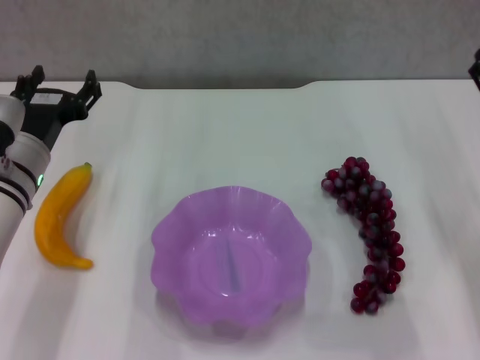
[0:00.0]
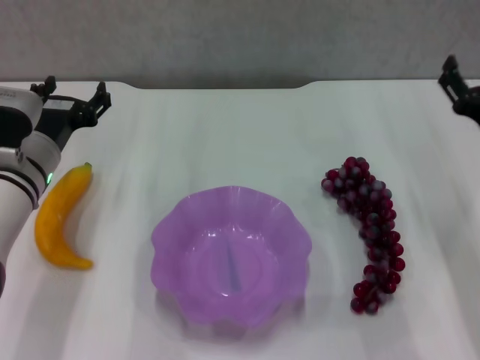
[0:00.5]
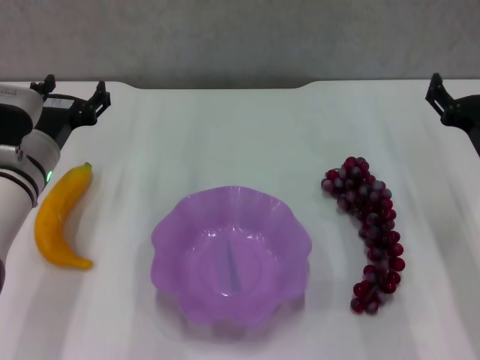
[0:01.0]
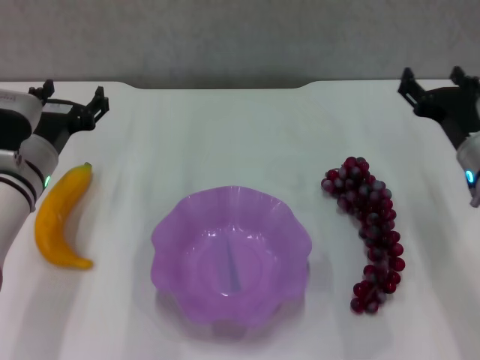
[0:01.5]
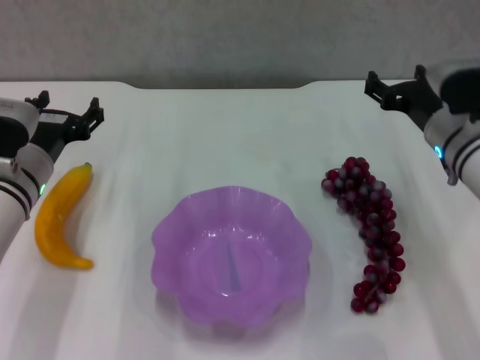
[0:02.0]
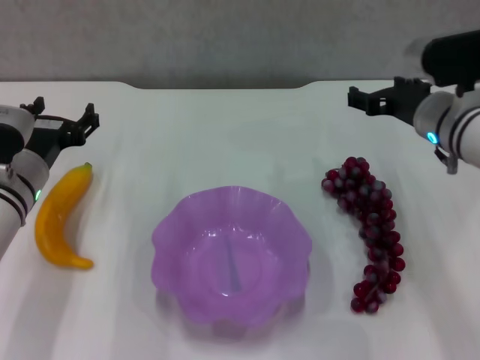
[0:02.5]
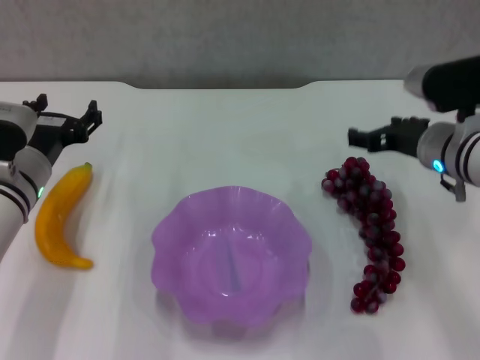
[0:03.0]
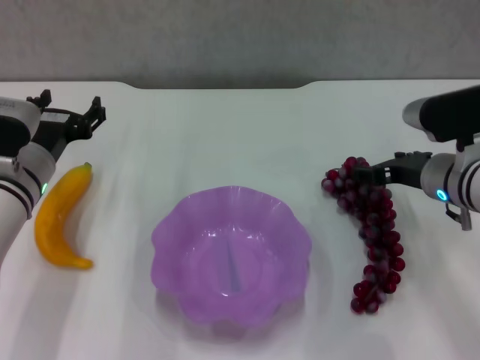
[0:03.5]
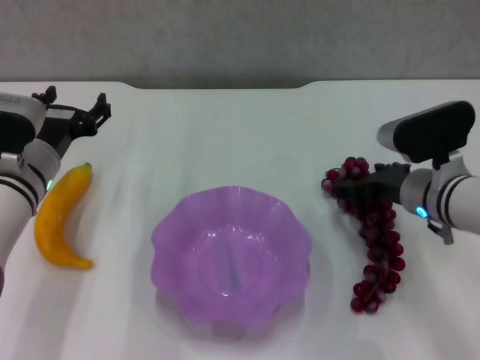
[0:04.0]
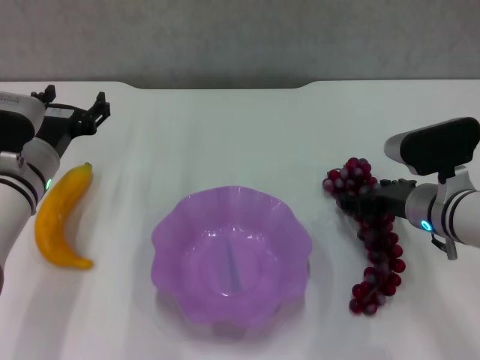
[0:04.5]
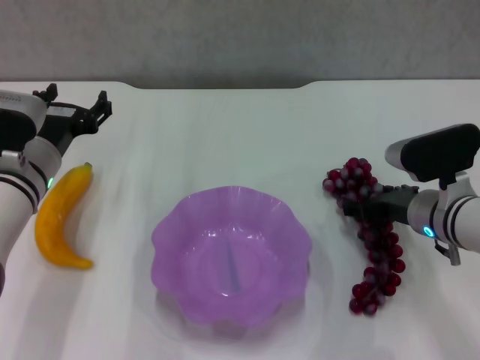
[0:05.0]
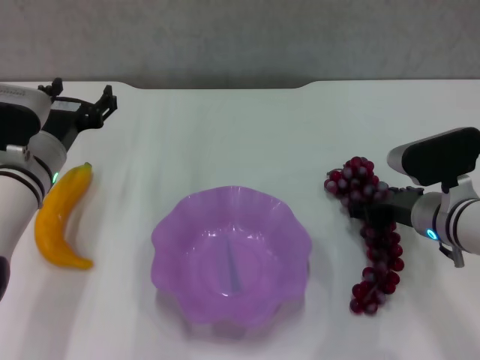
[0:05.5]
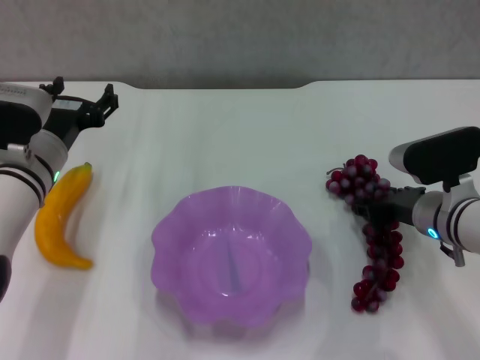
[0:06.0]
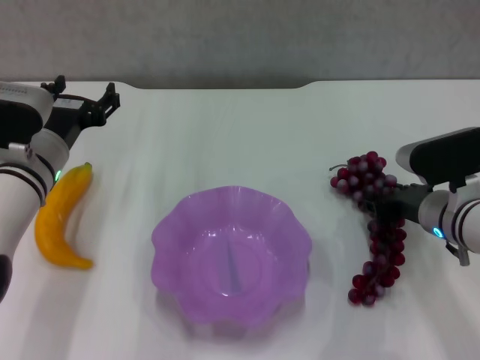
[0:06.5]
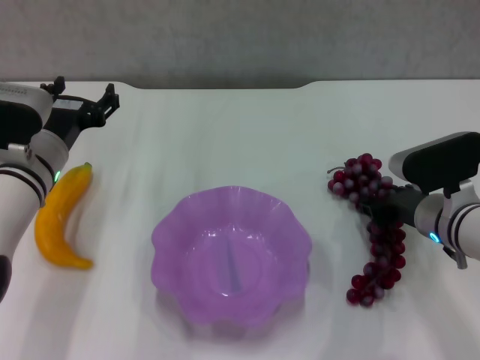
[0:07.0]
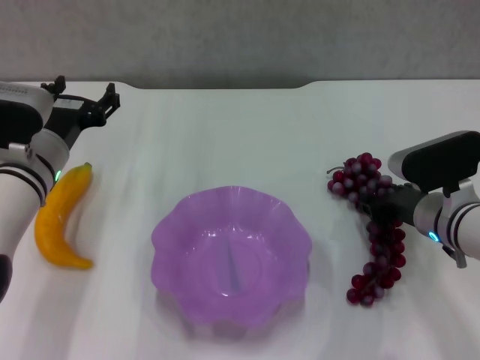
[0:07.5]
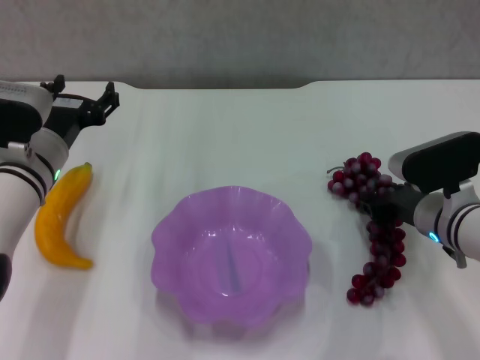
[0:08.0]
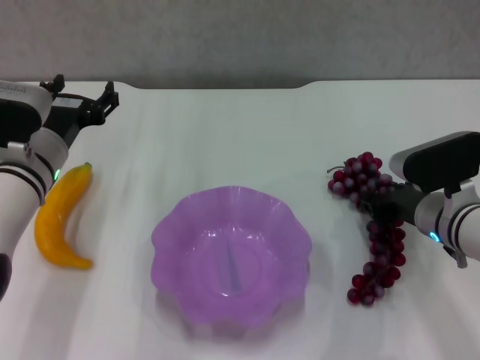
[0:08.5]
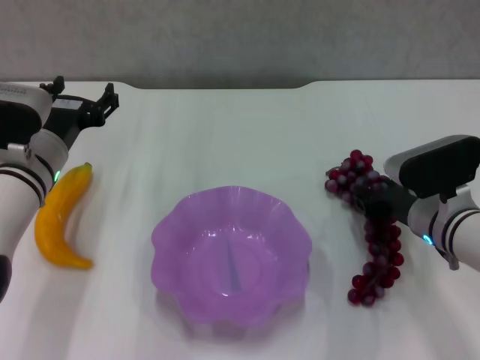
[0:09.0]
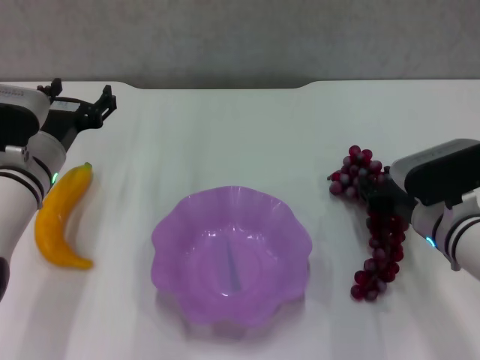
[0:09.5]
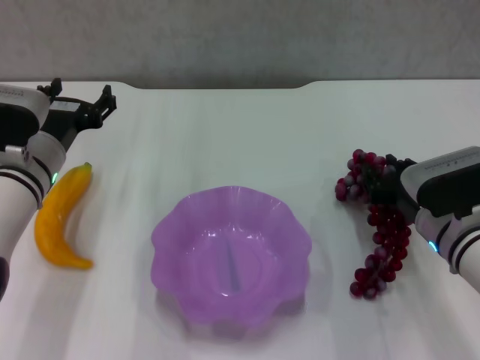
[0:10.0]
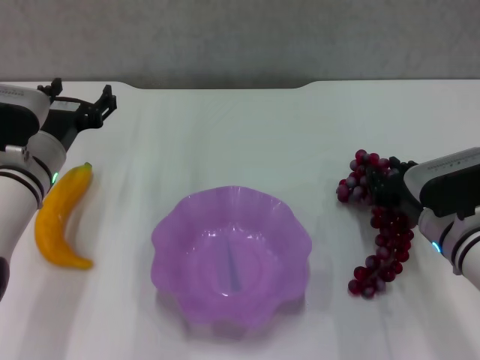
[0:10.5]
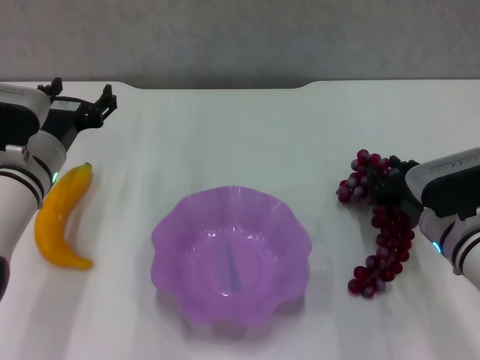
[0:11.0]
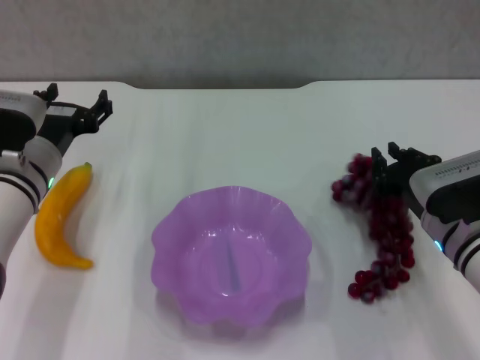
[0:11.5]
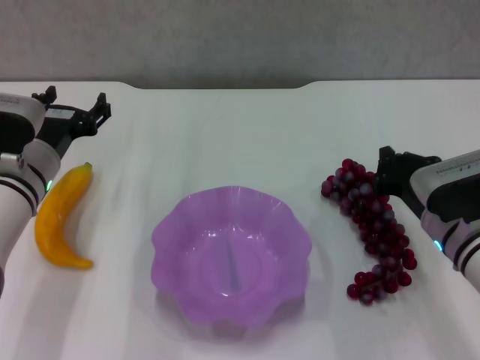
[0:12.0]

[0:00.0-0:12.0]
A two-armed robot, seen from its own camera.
0:00.0 to 0:02.0: The right gripper moves forward and to the left, about 10 cm.
0:02.0 to 0:04.0: The right gripper shifts by approximately 5 cm.
0:04.0 to 0:10.0: The grippers stay close to where they were, moving slightly.
0:10.0 to 0:12.0: The right gripper closes its fingers.

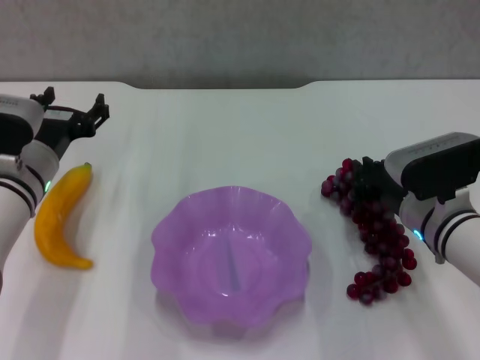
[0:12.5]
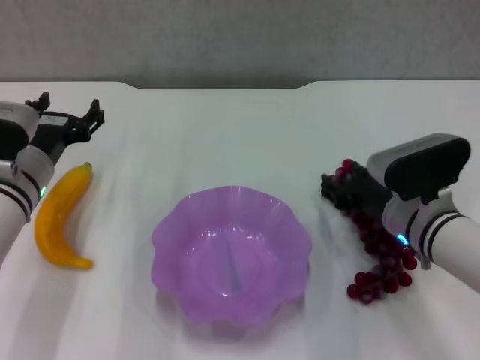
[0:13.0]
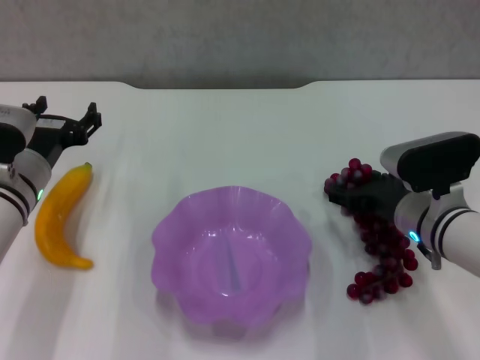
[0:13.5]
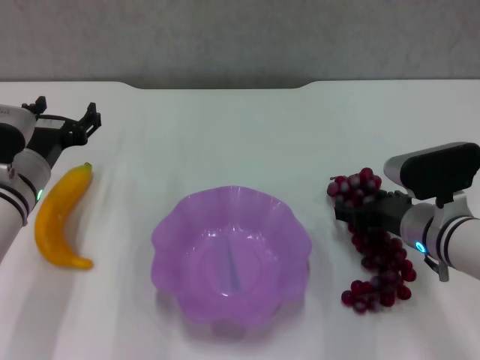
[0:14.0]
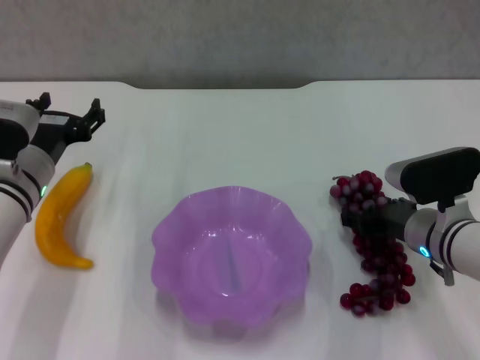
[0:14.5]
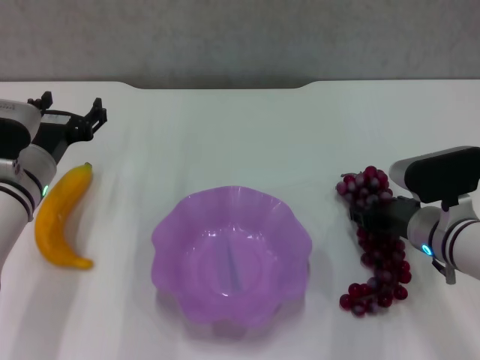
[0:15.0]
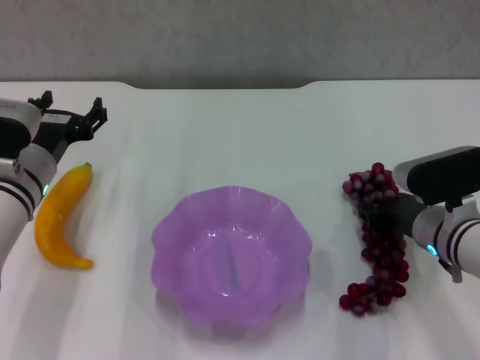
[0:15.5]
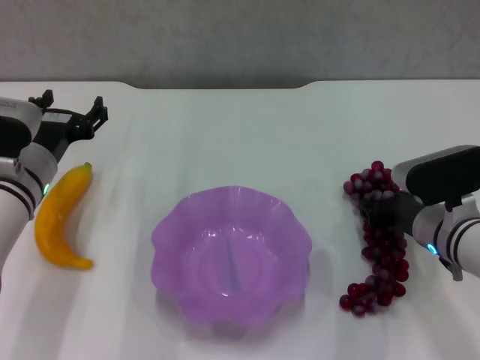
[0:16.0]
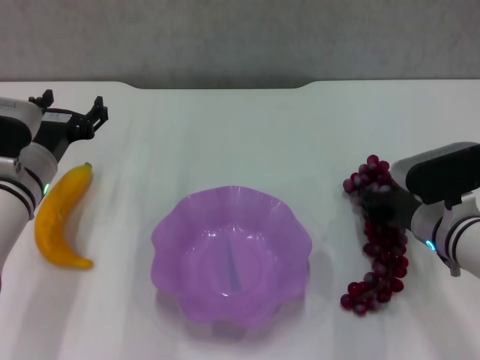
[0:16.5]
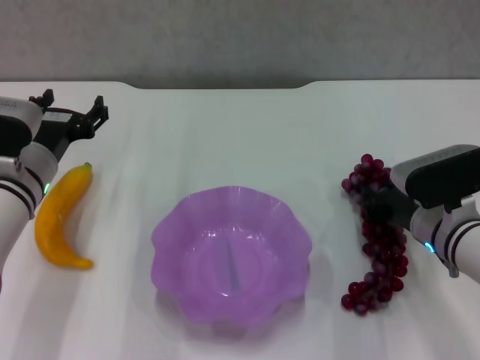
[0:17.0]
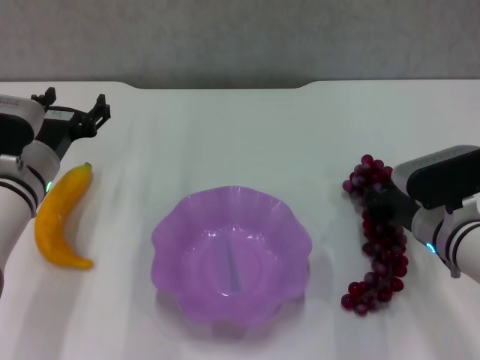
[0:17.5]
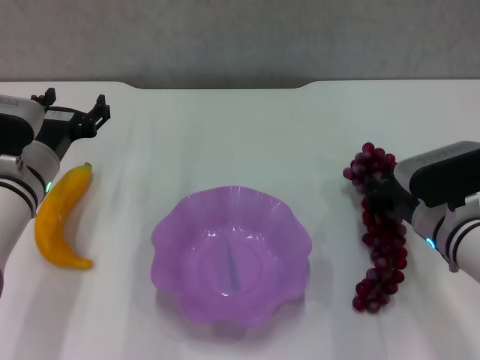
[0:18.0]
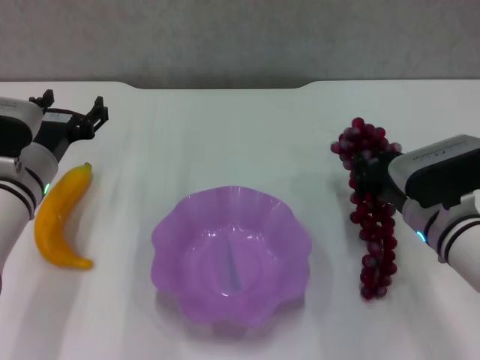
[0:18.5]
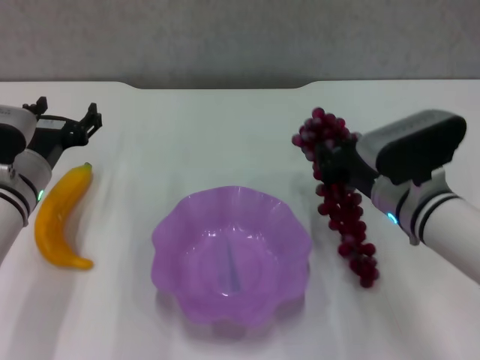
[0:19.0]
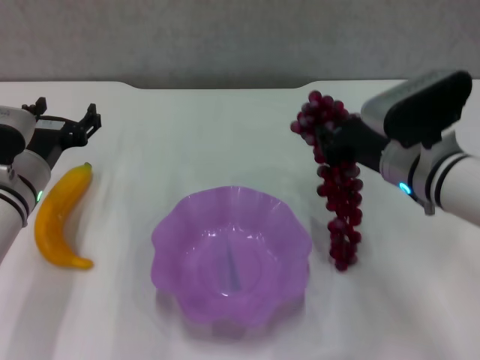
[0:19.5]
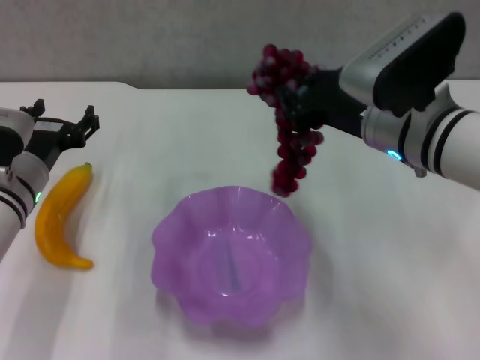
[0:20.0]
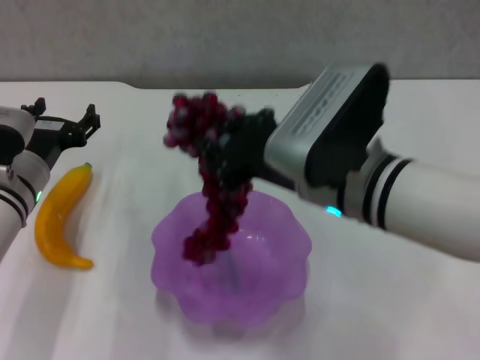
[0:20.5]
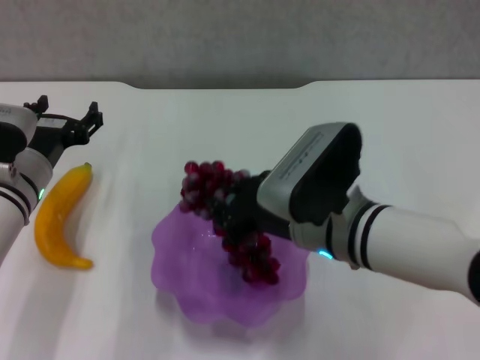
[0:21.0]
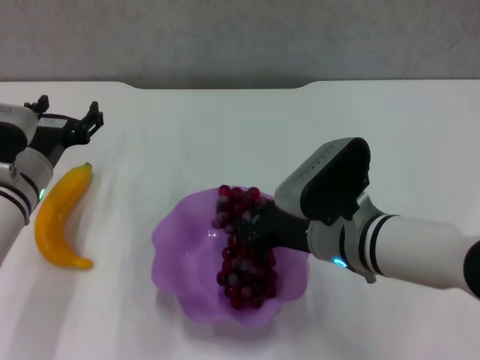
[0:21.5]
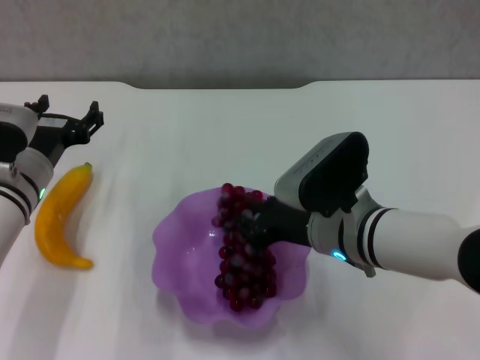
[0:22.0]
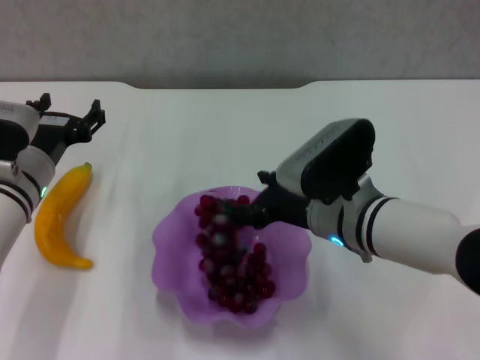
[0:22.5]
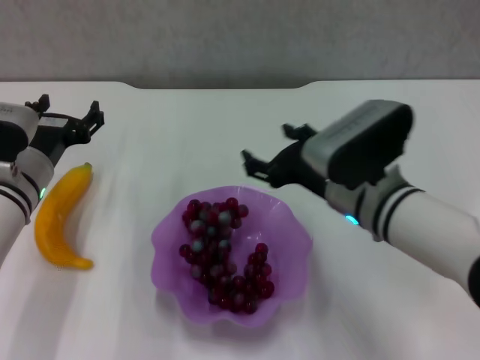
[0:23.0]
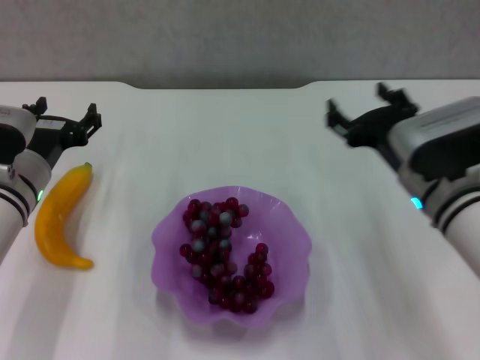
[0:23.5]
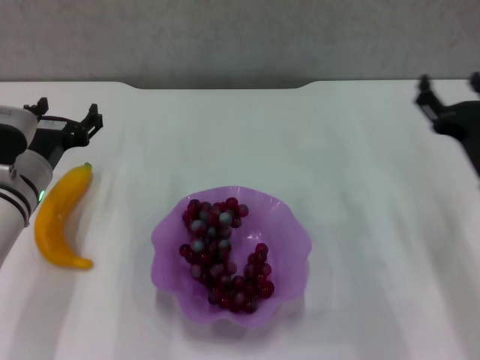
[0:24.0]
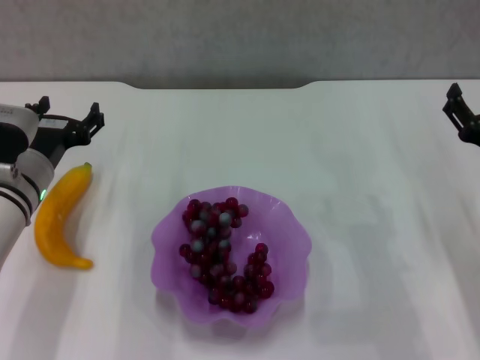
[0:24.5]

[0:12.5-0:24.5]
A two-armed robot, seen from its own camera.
Step, 0:12.5 to 0:17.0: Grasp the grape with right gripper.
Step, 0:17.5 to 0:22.0: Place the grape in the purple plate with right gripper.
0:12.5 to 0:14.5: The right gripper opens.
0:14.5 to 0:16.5: The right gripper closes.
0:16.5 to 0:18.5: There are only small adjustments of the grippers.
0:18.5 to 0:20.5: The right gripper goes about 15 cm upward and to the left.
0:20.5 to 0:22.5: The right gripper goes some 10 cm downward, and opens up.
0:22.5 to 0:24.5: The right gripper shifts approximately 20 cm to the right, and opens up.

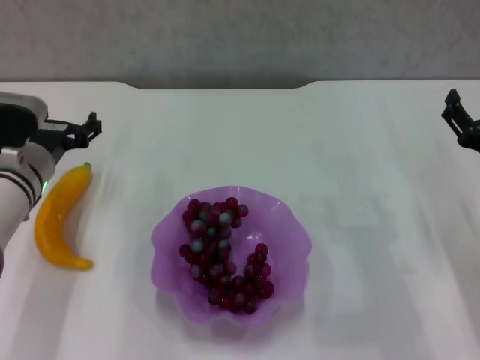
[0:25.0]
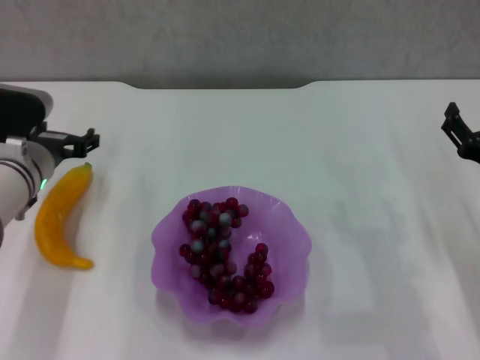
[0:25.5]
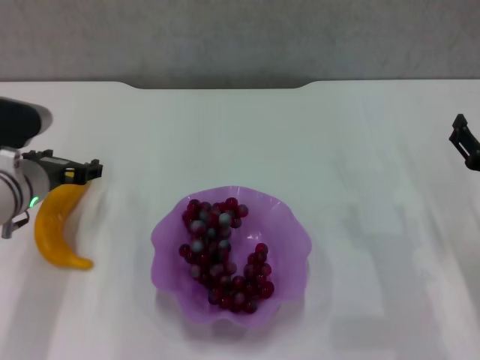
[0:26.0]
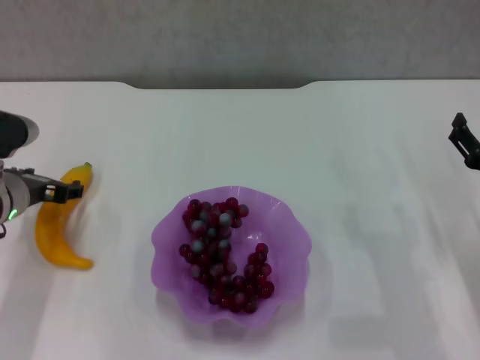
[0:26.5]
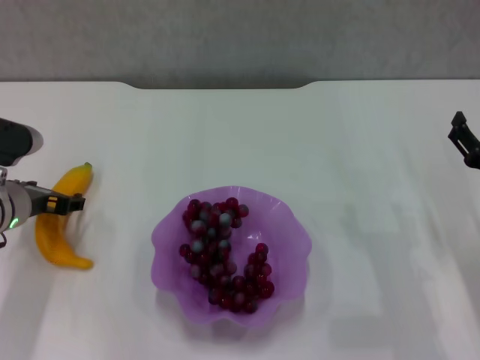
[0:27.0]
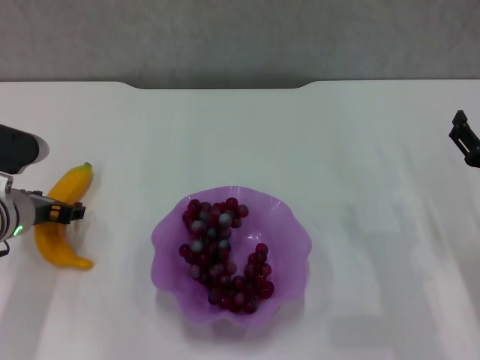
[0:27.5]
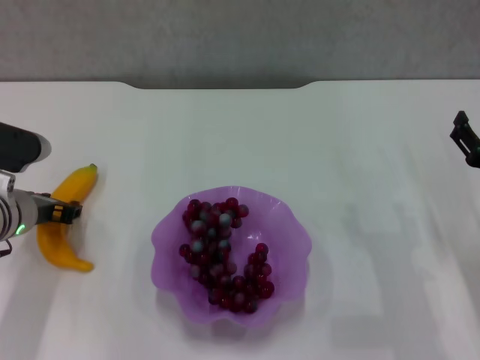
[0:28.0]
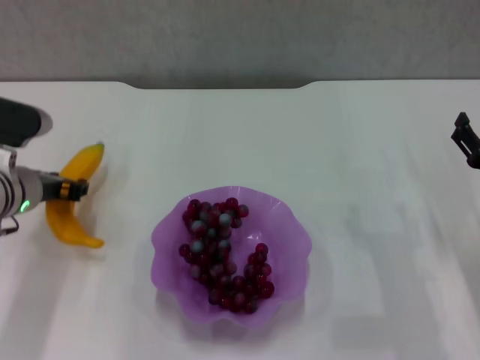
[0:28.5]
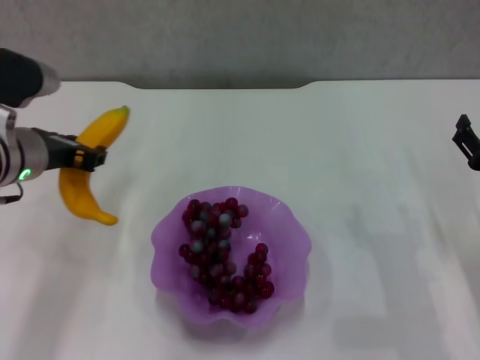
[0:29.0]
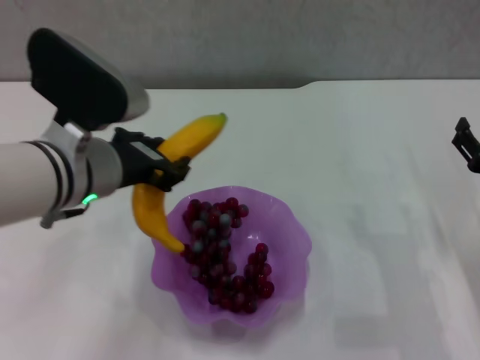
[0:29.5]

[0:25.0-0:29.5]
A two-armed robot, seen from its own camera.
Step, 0:25.0 to 0:28.0: Grasp the banana with left gripper.
0:27.0 to 0:29.5: The left gripper shifts approximately 15 cm to the right, upward and backward, and closes up.
